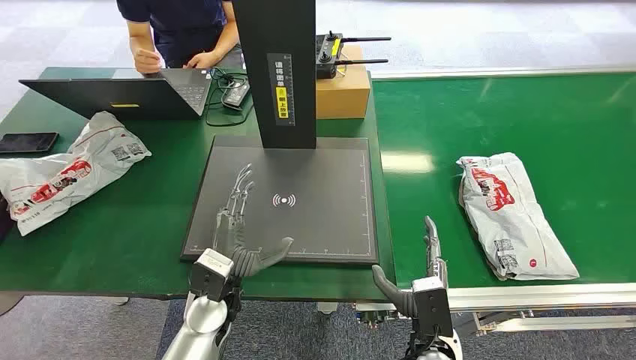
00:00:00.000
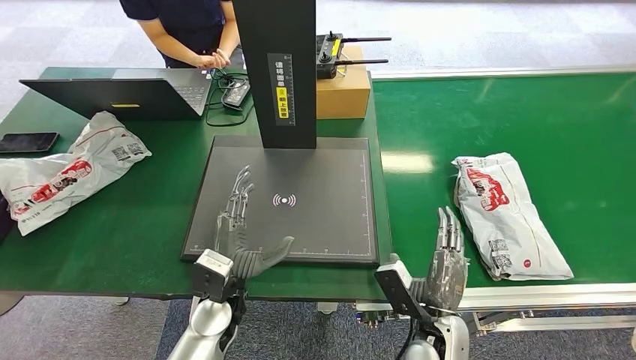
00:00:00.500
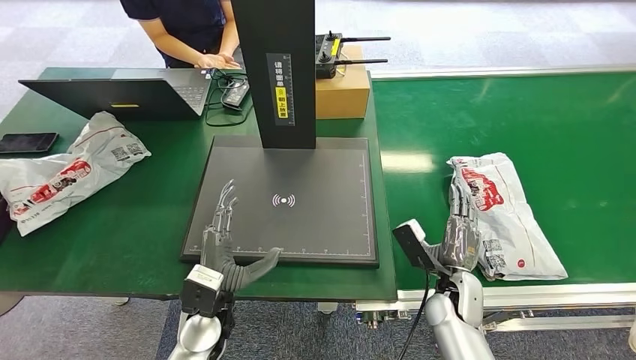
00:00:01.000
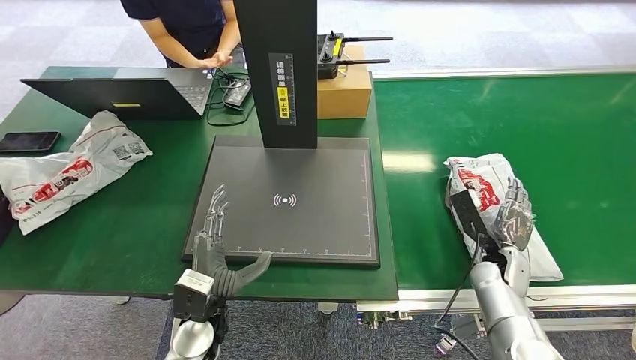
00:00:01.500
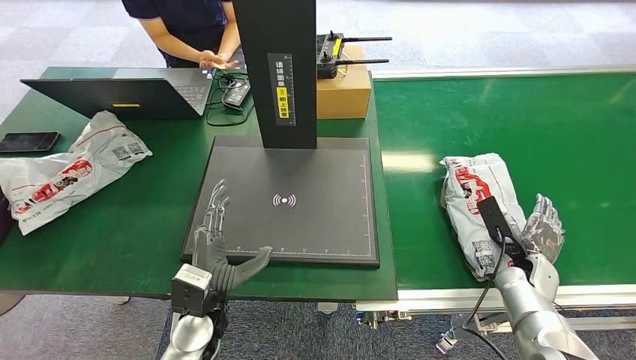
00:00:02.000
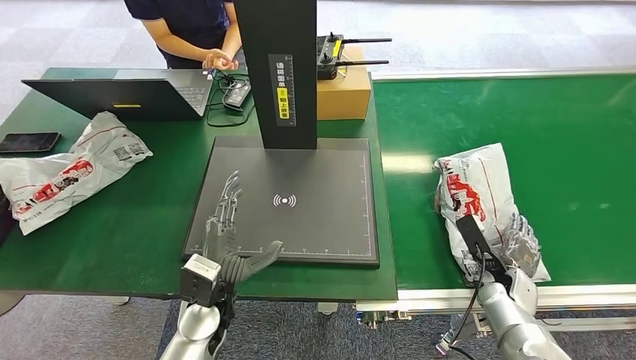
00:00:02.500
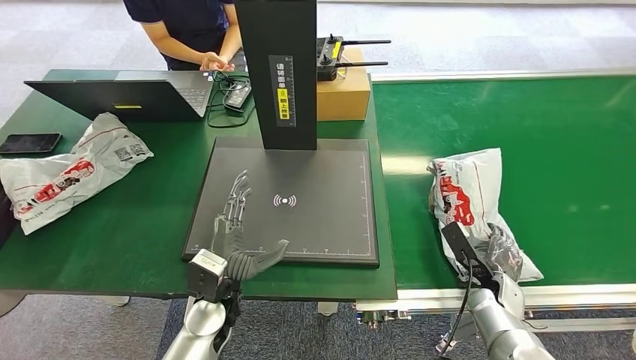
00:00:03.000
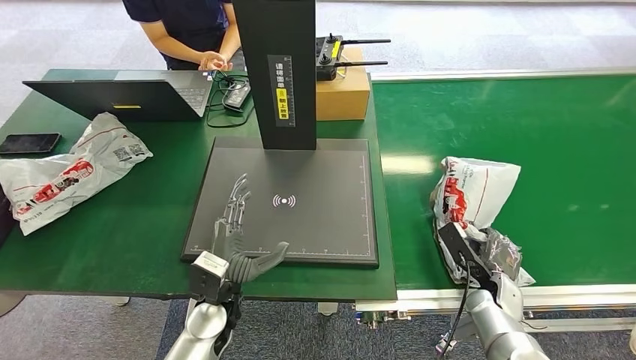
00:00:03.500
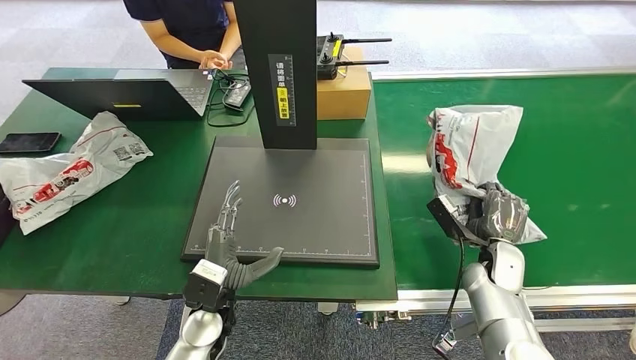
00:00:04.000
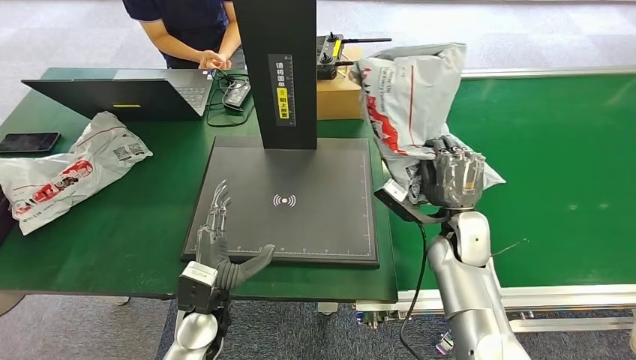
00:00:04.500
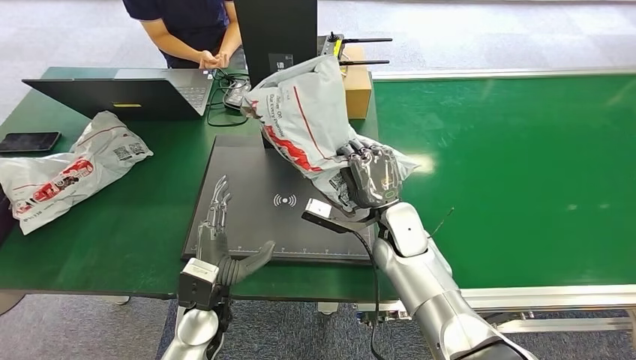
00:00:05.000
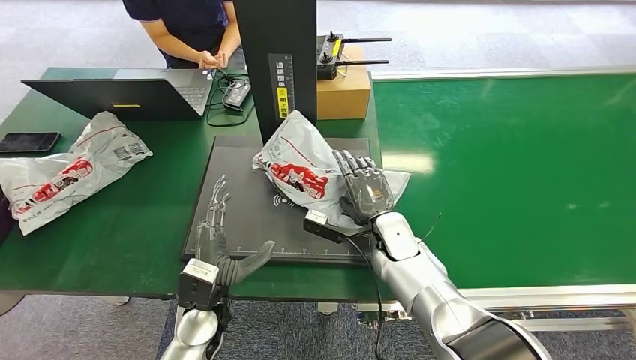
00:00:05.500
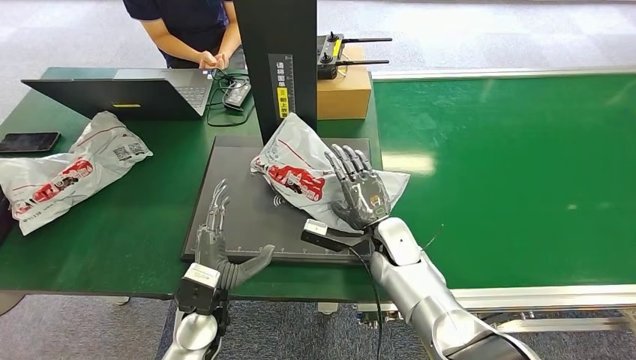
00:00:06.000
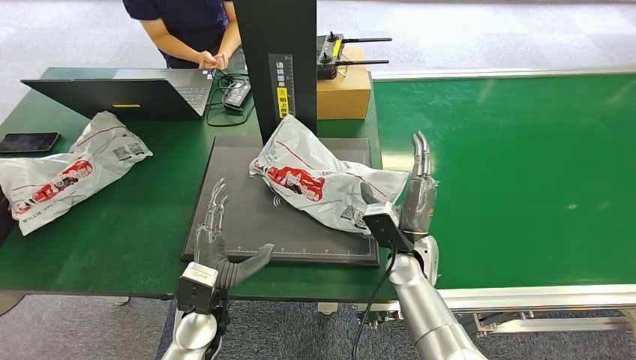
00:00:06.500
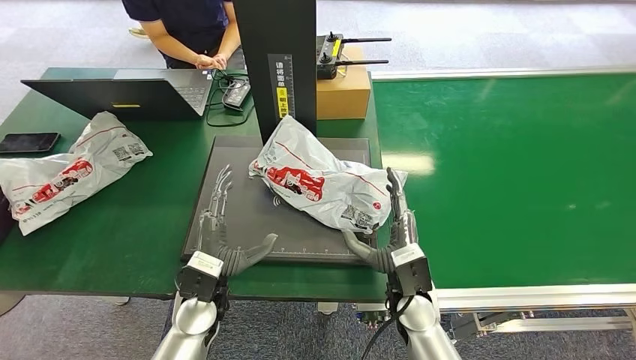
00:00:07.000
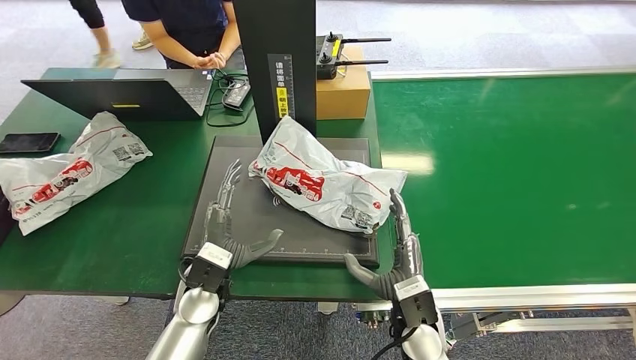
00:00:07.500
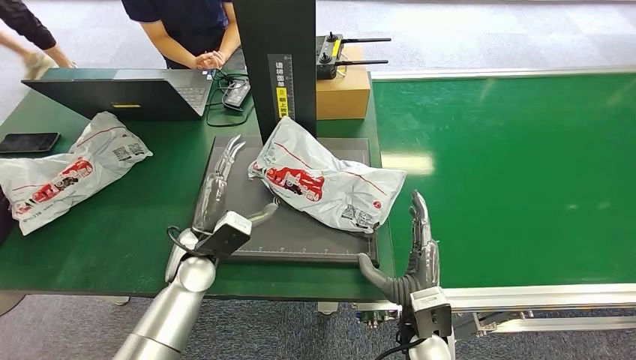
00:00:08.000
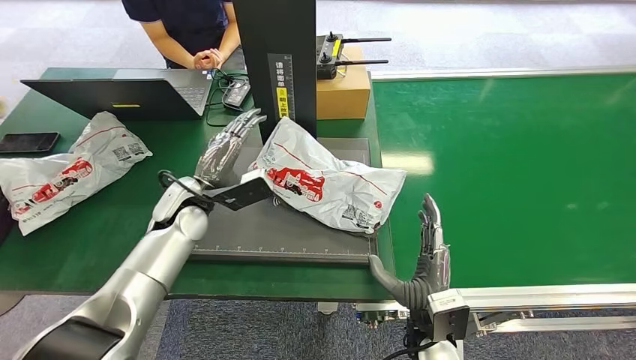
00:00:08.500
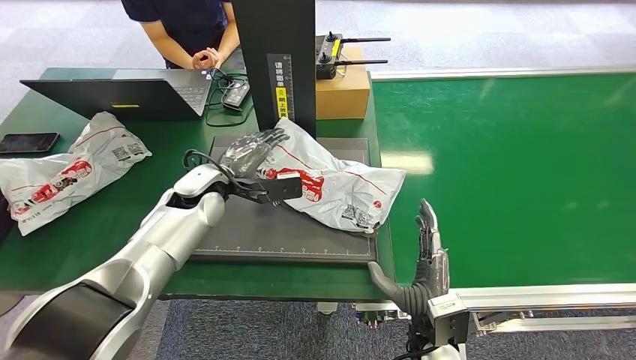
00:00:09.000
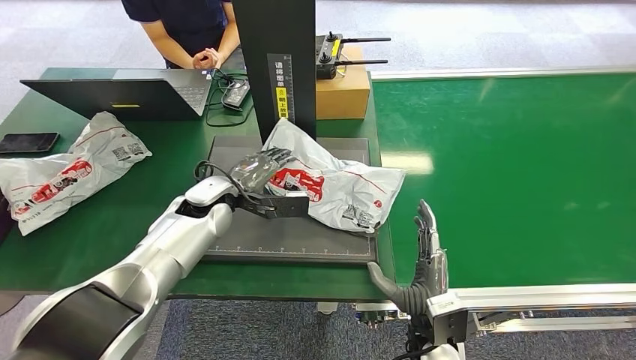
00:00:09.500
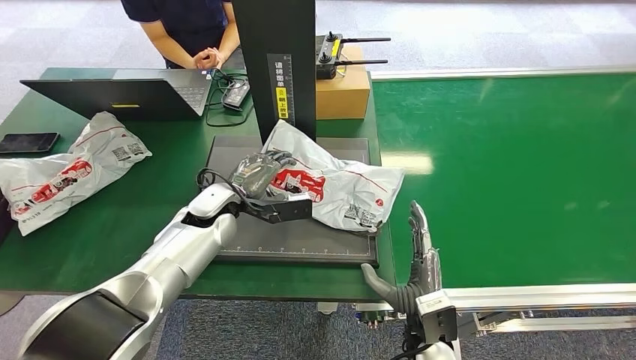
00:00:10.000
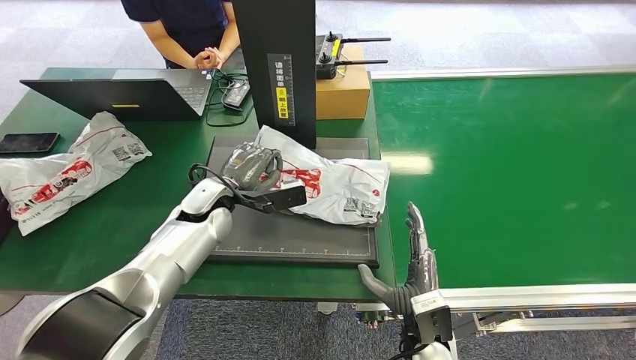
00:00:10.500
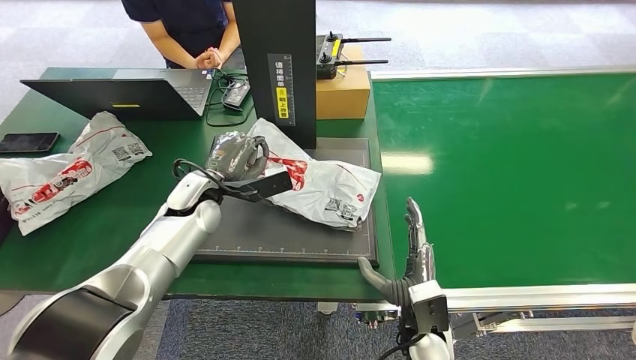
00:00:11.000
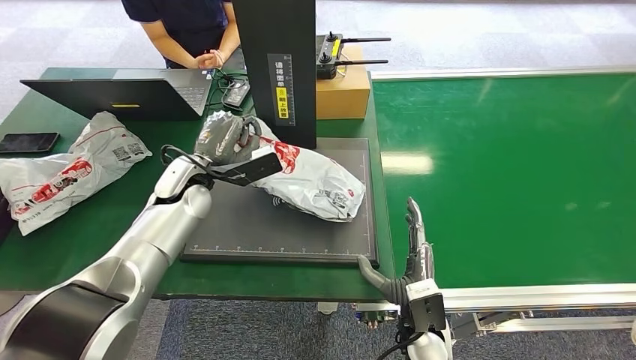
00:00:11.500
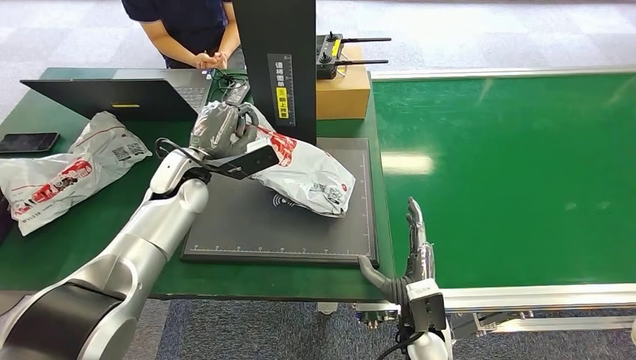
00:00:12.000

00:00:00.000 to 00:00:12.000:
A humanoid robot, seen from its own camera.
Step, 00:00:00.000 to 00:00:04.000: Pick up the package from the conveyor belt.
Step, 00:00:04.500 to 00:00:06.500: Place the package onto the inbound machine.
00:00:02.000 to 00:00:04.000: The right hand heads to the left, covering some 5 cm, and goes downward and returns, approximately 5 cm each way.
00:00:04.000 to 00:00:06.000: The right hand travels to the left by some 20 cm.
00:00:06.000 to 00:00:08.000: The right hand shifts approximately 15 cm backward. The left hand shifts approximately 10 cm forward.
00:00:08.000 to 00:00:10.000: The left hand is displaced forward by about 10 cm.
00:00:10.000 to 00:00:12.000: The left hand heads upward, covering about 5 cm.

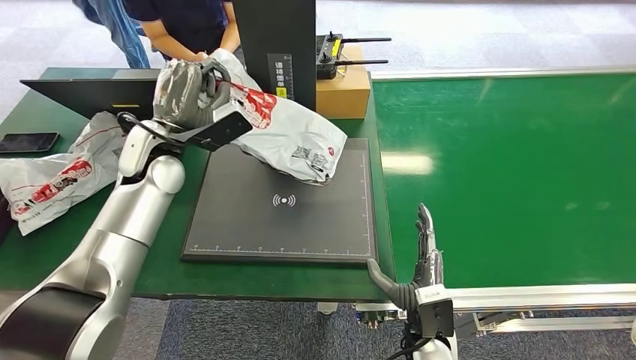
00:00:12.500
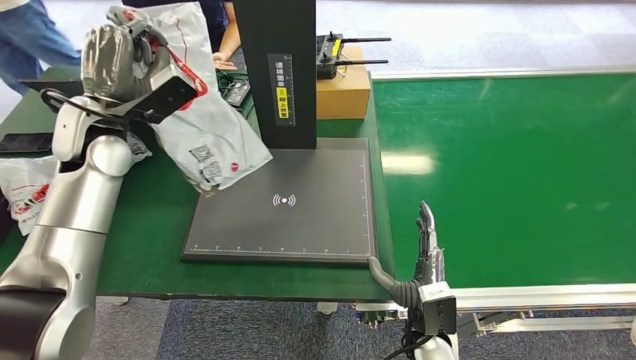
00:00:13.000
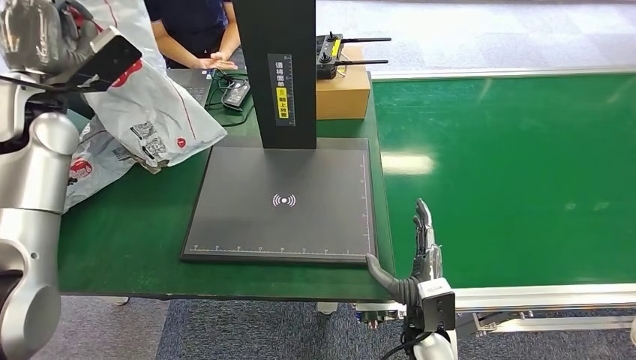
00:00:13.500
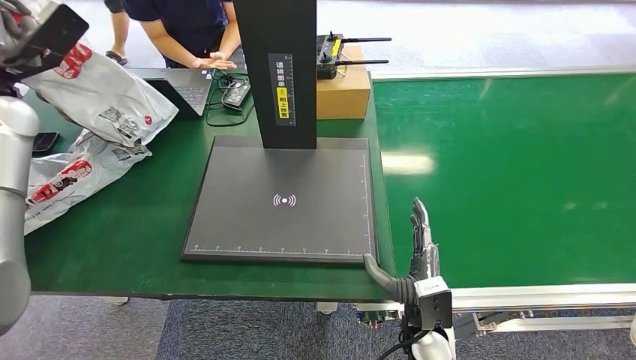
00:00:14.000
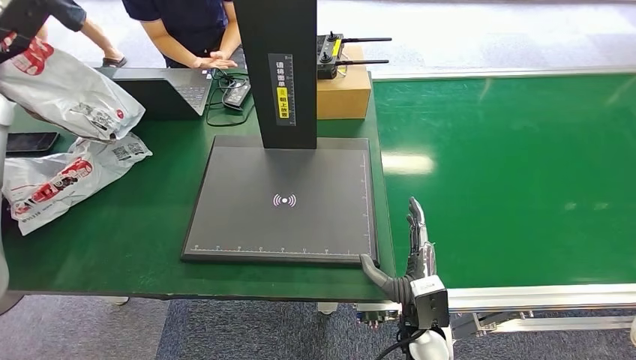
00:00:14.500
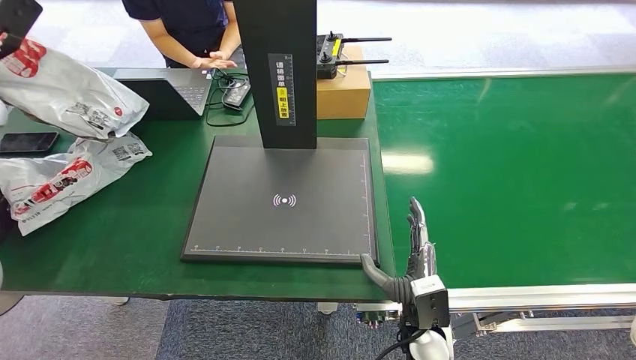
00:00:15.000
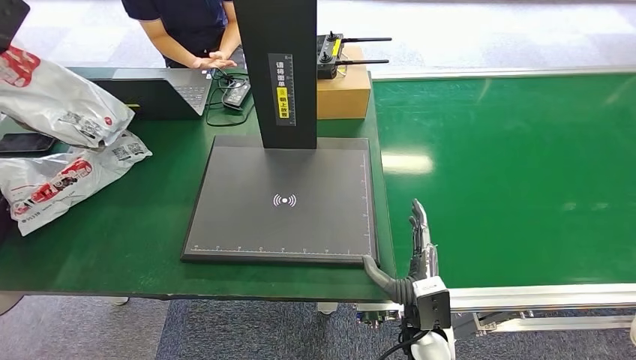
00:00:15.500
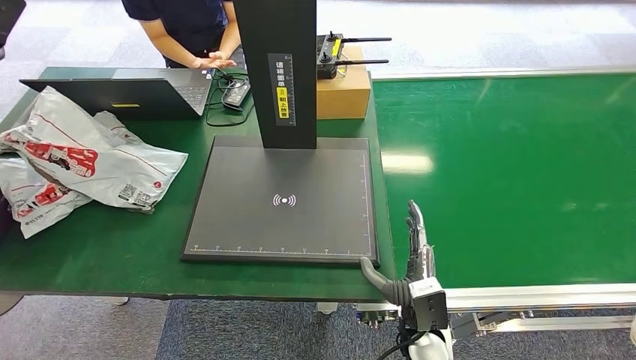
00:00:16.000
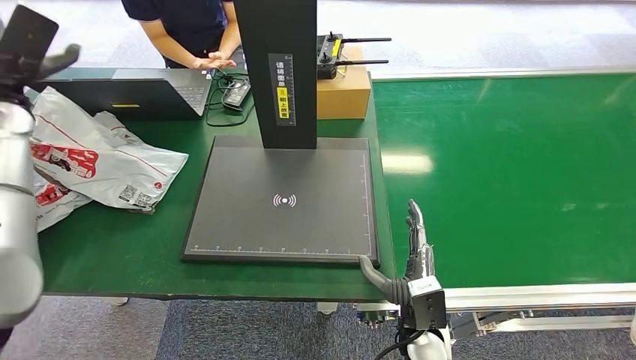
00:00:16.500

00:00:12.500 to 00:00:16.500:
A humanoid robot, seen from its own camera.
Step, 00:00:12.500 to 00:00:16.500: Place the package into the parcel locker.
